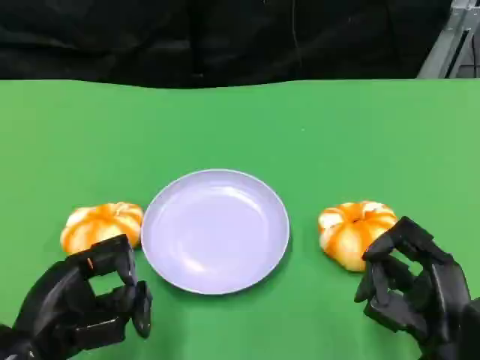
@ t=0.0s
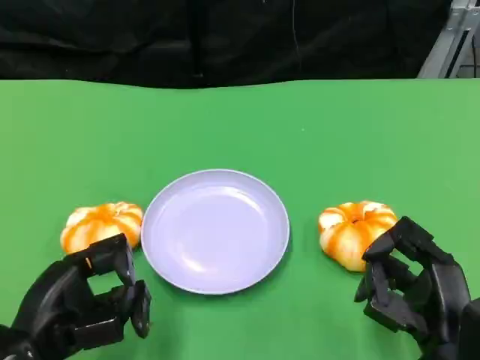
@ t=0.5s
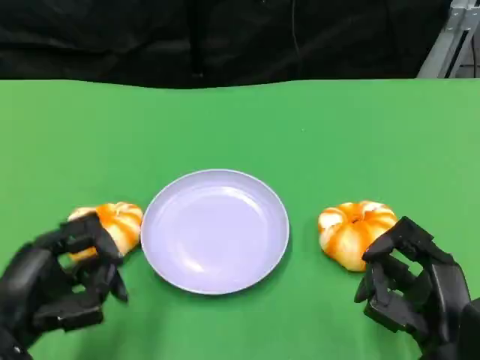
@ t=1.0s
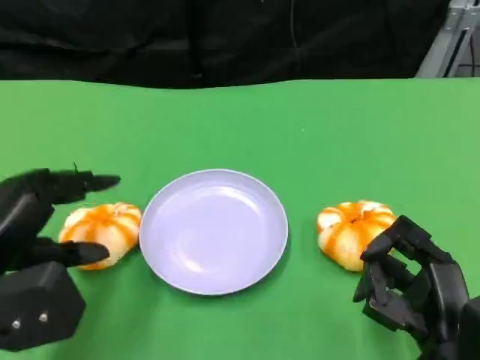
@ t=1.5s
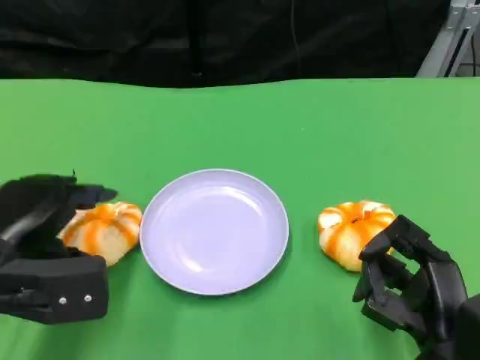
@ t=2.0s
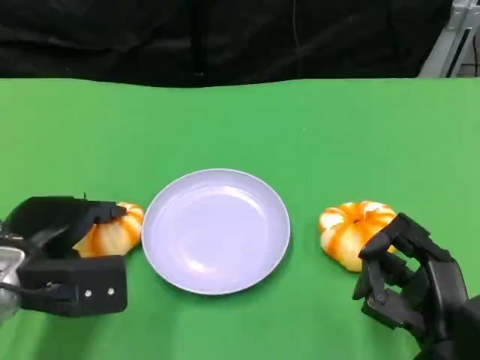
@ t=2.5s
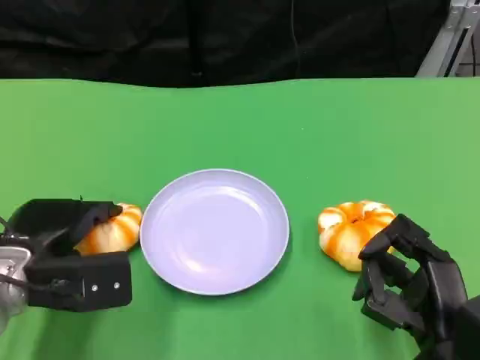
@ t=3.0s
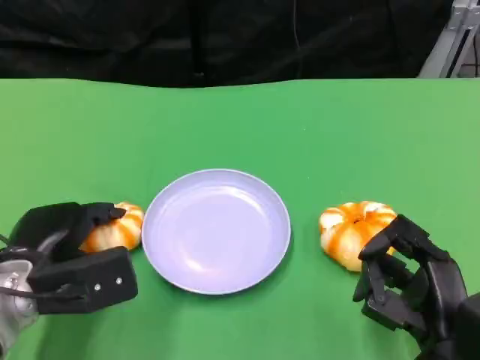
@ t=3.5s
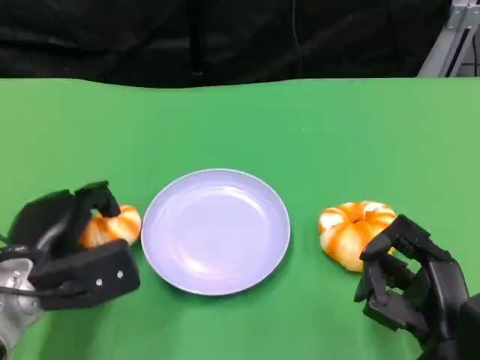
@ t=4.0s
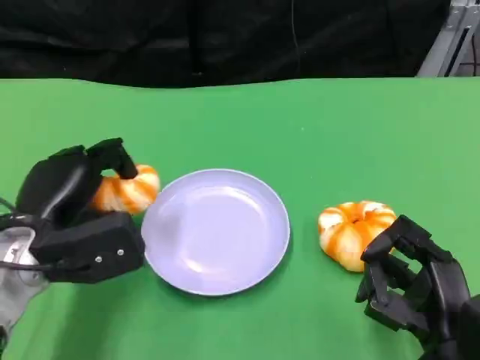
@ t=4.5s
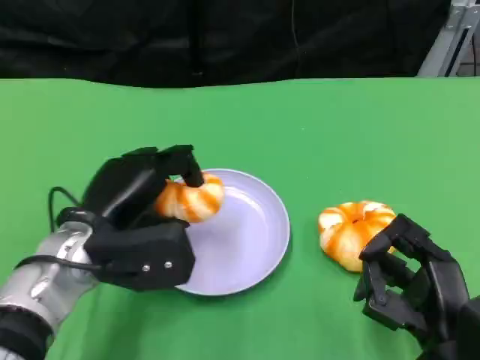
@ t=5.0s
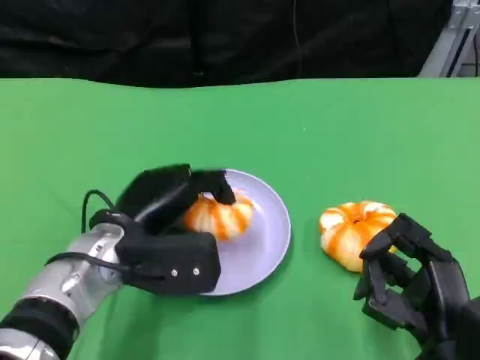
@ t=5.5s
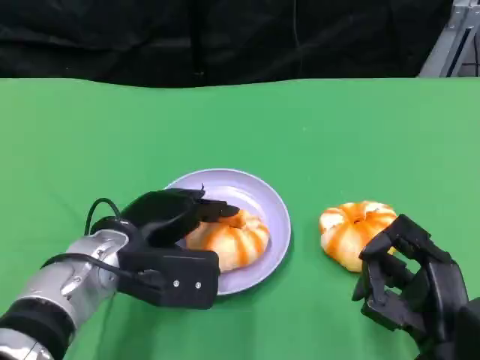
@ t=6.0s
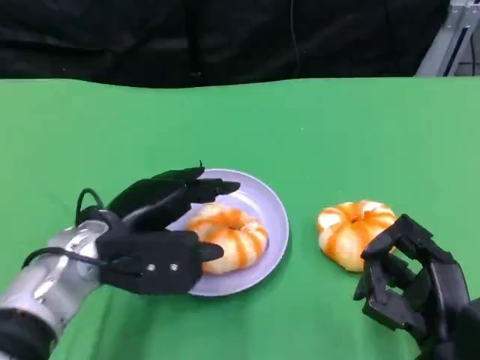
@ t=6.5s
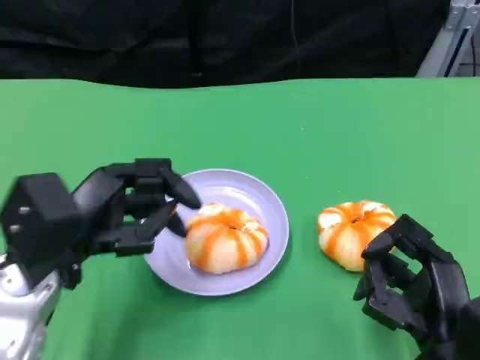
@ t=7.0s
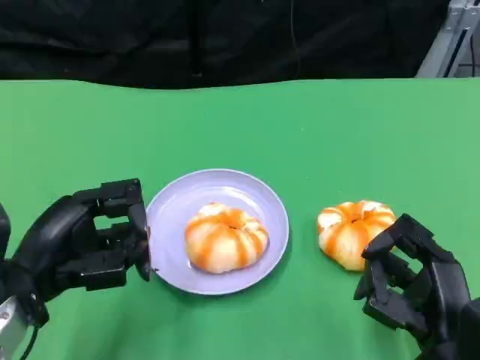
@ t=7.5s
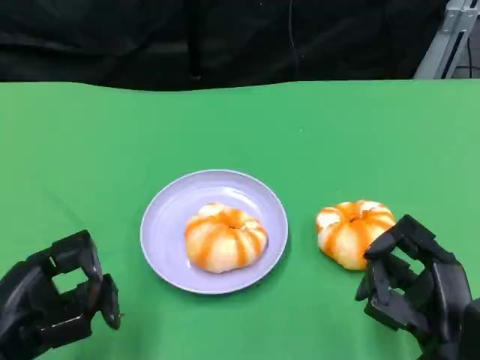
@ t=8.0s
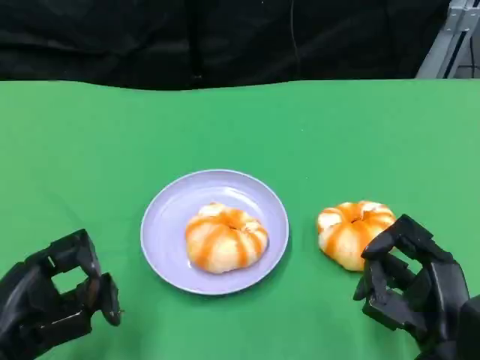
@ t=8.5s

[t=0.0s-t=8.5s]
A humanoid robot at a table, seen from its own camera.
Task of the whole recording: Grasp the bread from the table and place it into the plate.
t=0.0s to t=2.0s: The left hand goes approximately 10 cm forward.
t=2.0s to t=4.0s: The left hand ends up about 5 cm from where it was.
t=4.0s to t=6.5s: The left hand heads to the right, covering about 5 cm.
t=6.5s to t=8.5s: The left hand moves backward and to the left, some 15 cm.

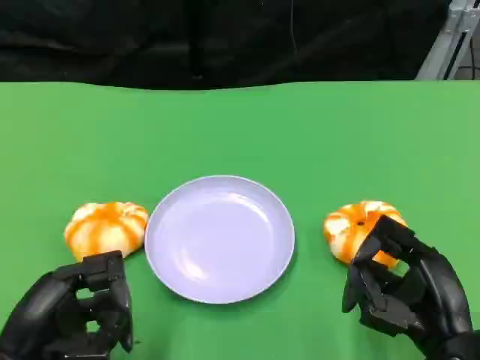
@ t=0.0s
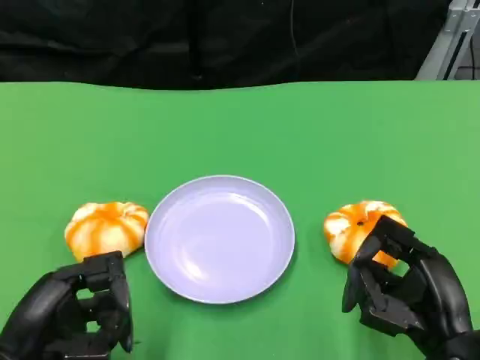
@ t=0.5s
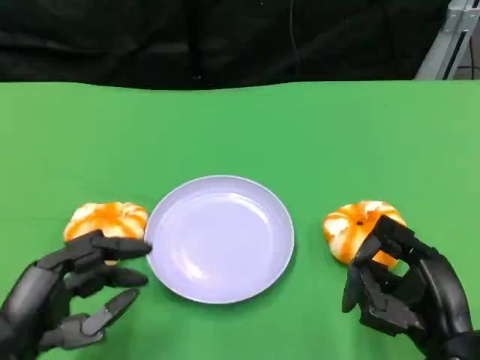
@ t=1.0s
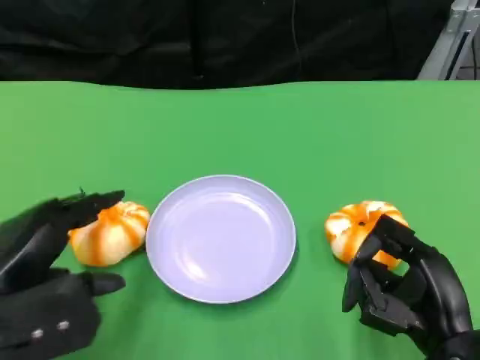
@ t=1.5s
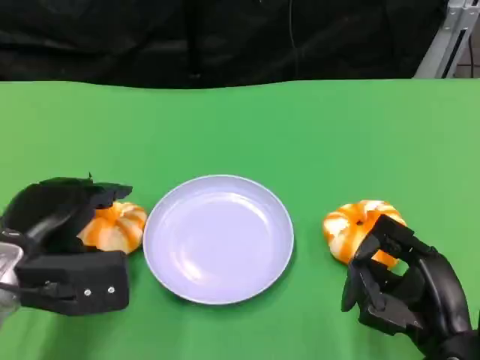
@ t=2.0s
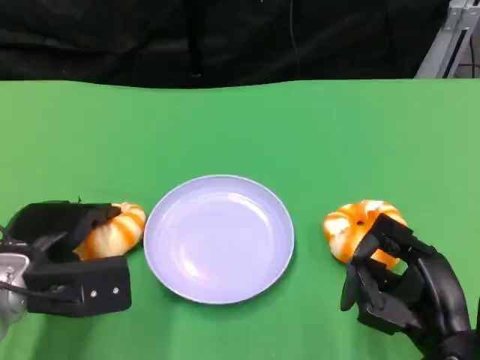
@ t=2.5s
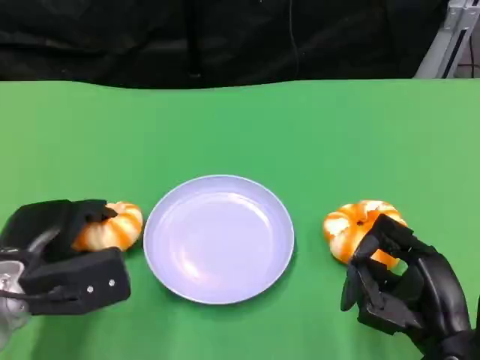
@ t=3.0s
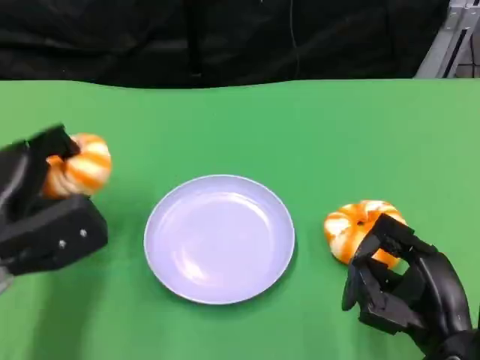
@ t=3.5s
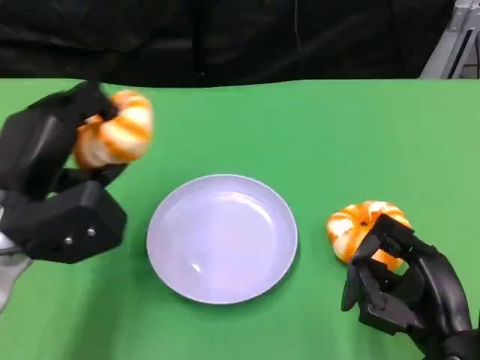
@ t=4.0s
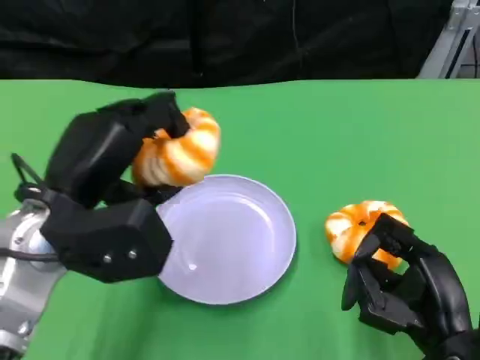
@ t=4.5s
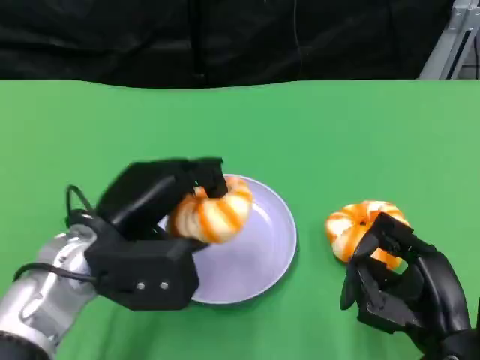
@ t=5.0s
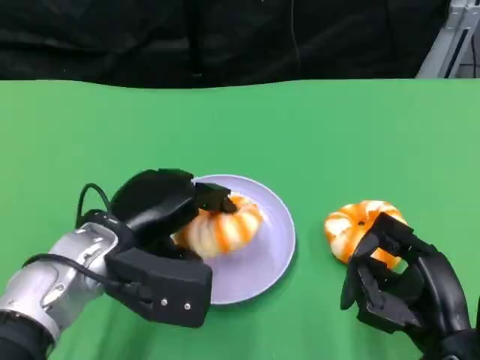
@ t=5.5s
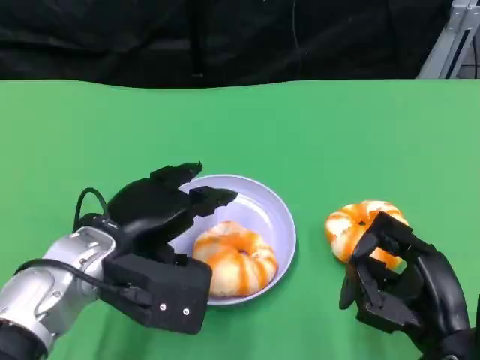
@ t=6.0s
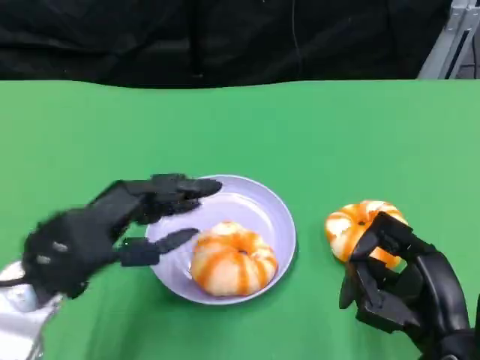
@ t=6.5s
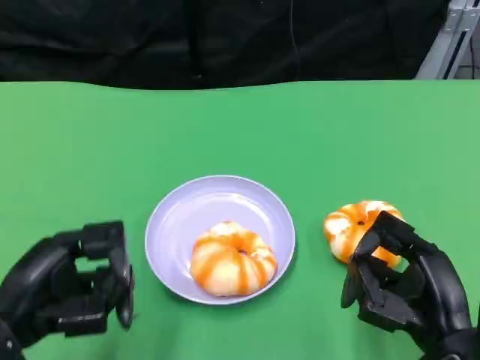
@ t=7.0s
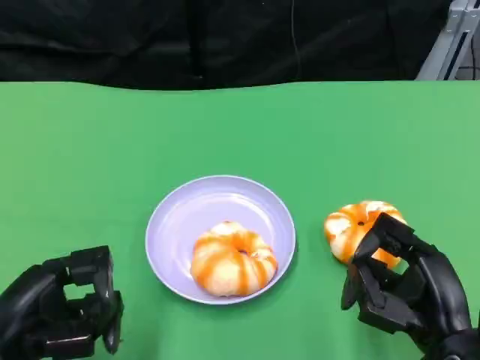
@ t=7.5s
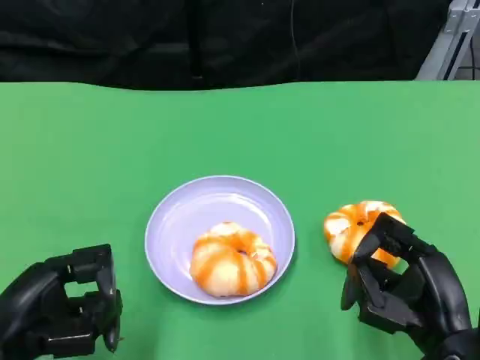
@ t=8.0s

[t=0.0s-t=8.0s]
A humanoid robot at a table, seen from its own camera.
Task of the whole recording: Grasp the bread from the table and place it into the plate.
t=0.0s to t=2.0s: The left hand goes about 10 cm forward.
t=2.0s to t=4.0s: The left hand shifts some 5 cm upward.
t=4.0s to t=6.0s: The left hand is displaced to the right by some 5 cm.
t=6.0s to t=8.0s: The left hand heads to the left and backward, covering roughly 15 cm.

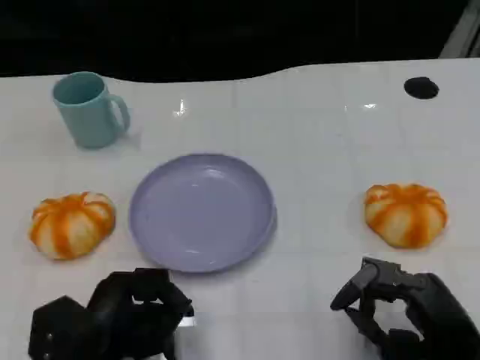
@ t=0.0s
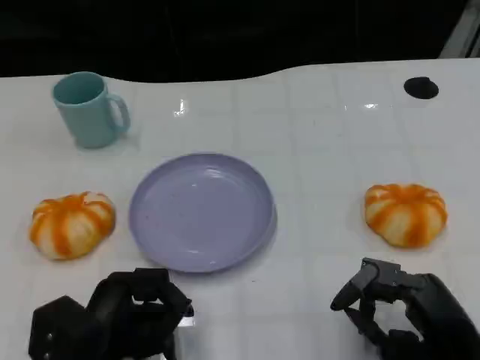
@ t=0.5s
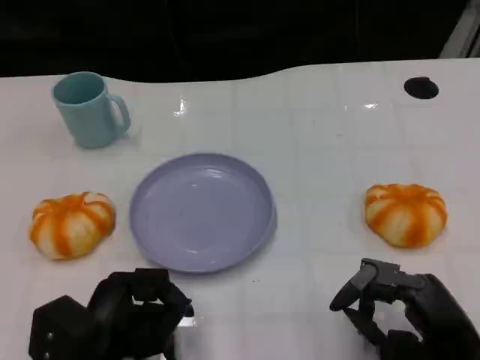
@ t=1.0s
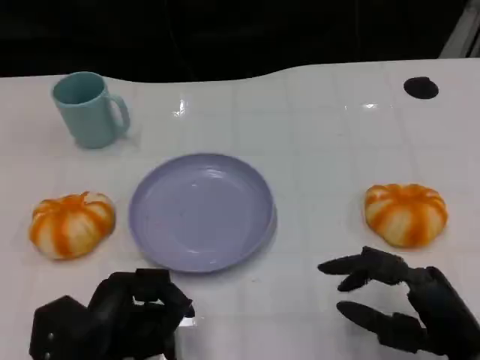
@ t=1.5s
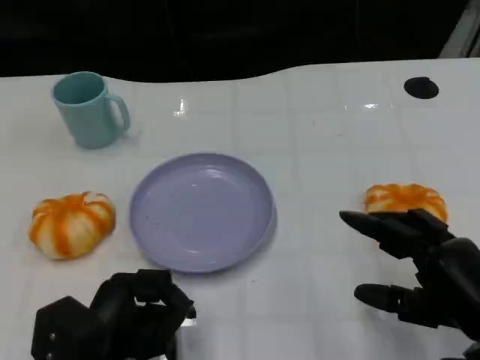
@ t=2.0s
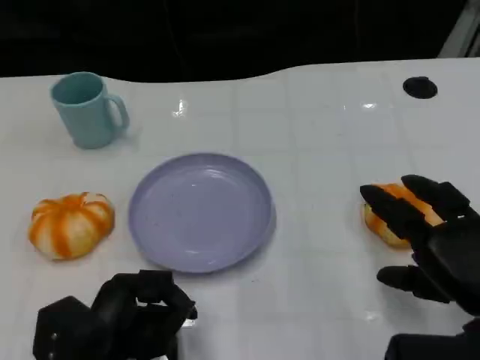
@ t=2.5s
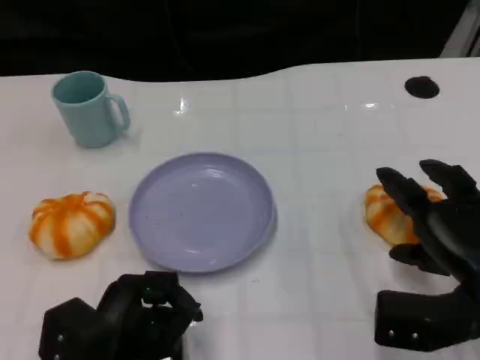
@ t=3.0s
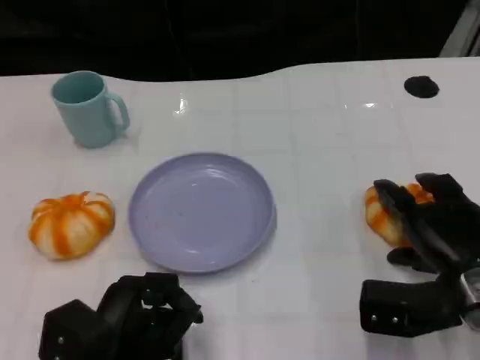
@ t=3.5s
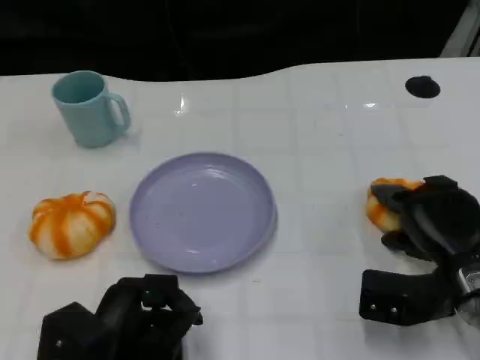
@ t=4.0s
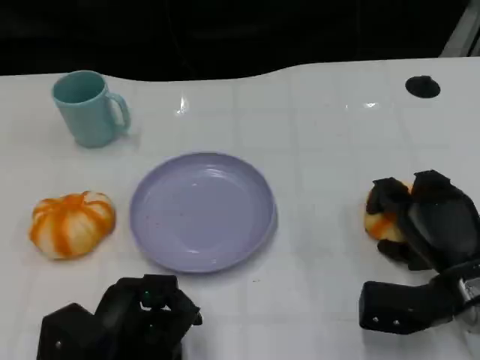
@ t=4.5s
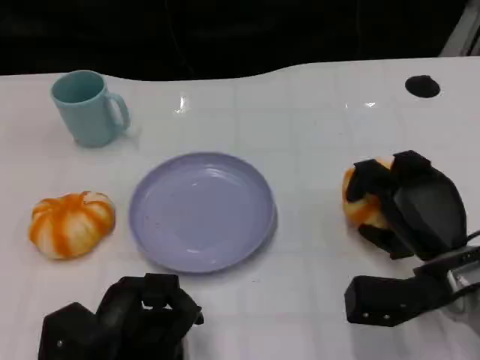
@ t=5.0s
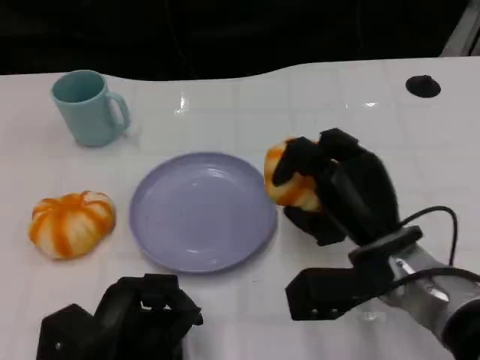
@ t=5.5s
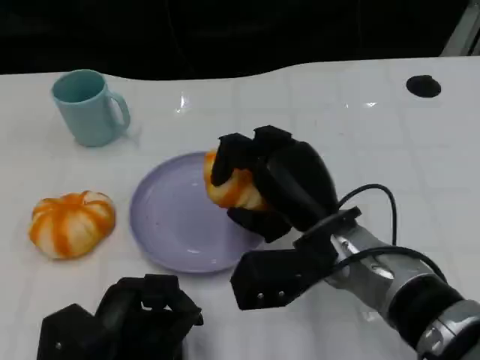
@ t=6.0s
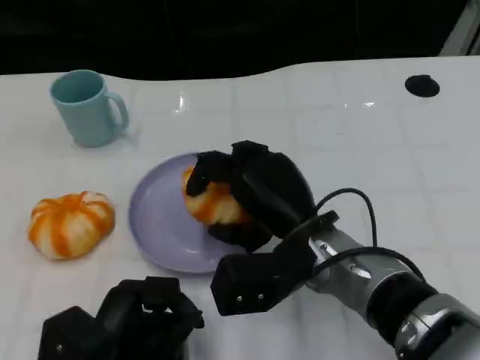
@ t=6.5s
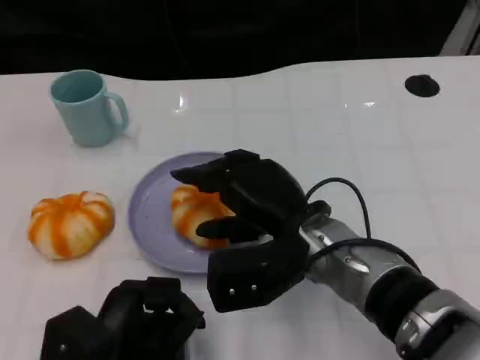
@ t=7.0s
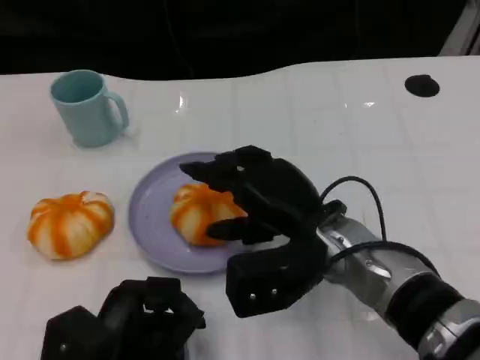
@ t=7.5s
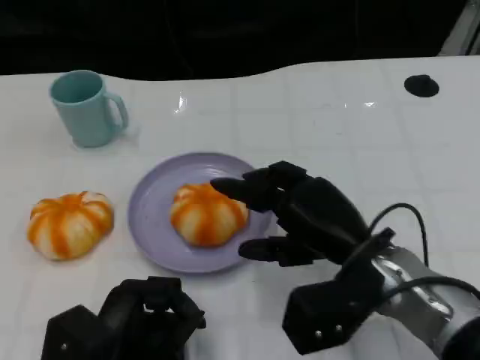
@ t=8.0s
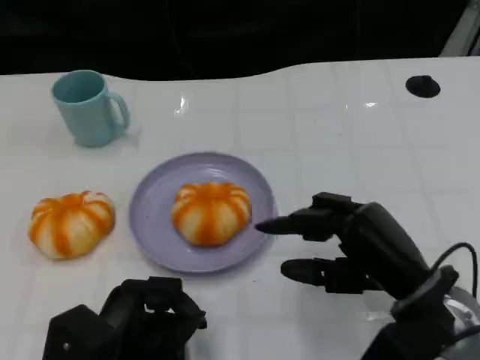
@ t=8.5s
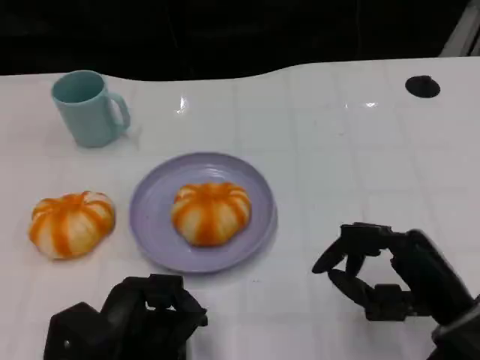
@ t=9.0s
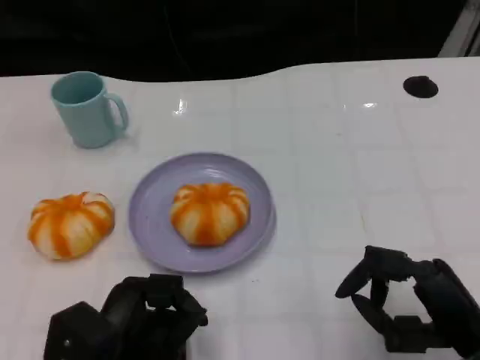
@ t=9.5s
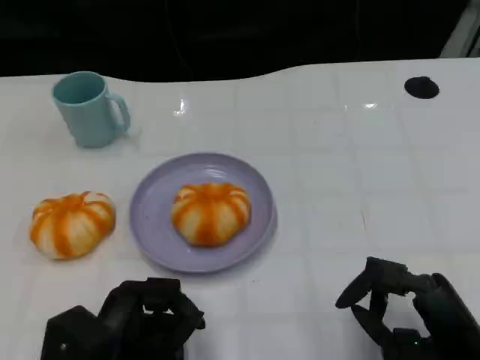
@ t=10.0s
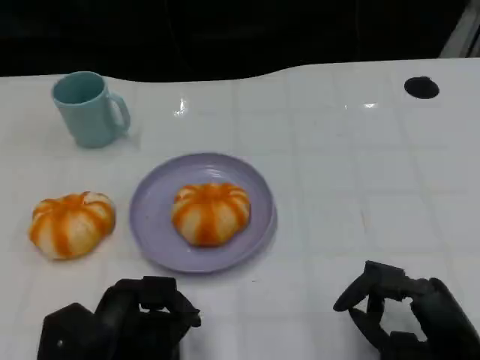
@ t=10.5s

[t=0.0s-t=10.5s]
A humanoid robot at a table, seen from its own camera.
Task of the whole recording: Grasp the bread from the table and place it into the plate.
t=2.0s to t=4.0s: The right hand travels forward by approximately 10 cm.
t=4.0s to t=6.5s: The right hand shifts approximately 15 cm to the left.
t=6.5s to t=8.5s: The right hand is displaced to the right by roughly 10 cm.
t=8.5s to t=10.5s: The right hand heads backward, covering some 5 cm.
